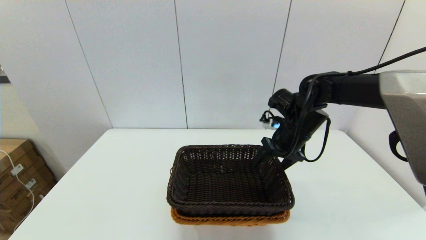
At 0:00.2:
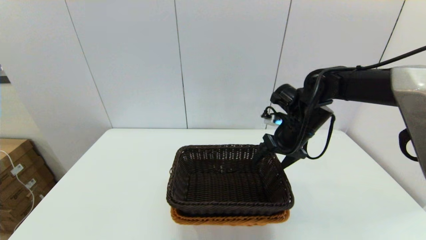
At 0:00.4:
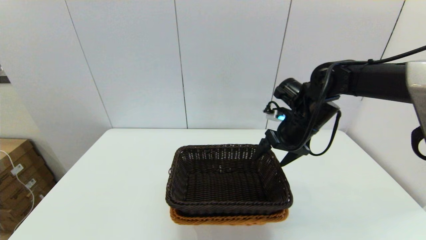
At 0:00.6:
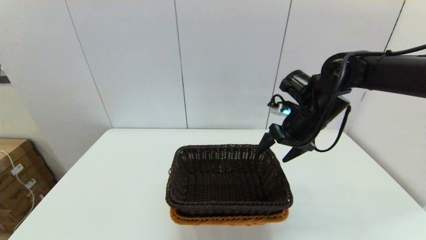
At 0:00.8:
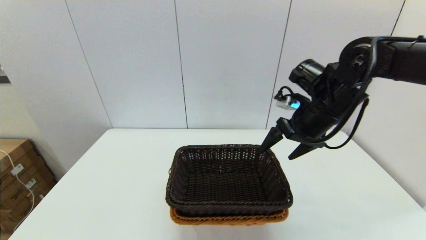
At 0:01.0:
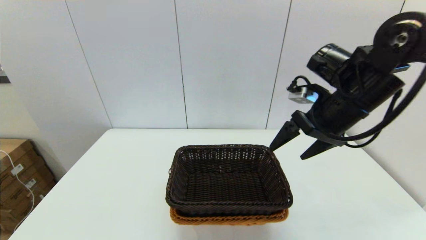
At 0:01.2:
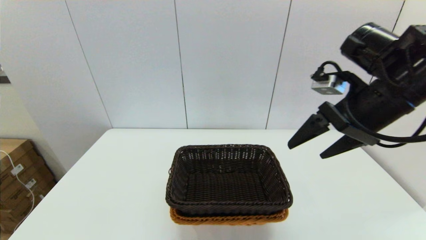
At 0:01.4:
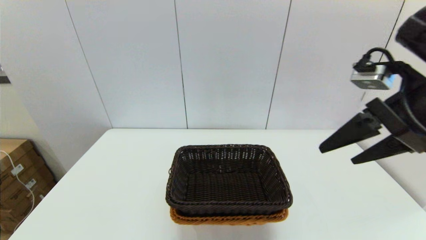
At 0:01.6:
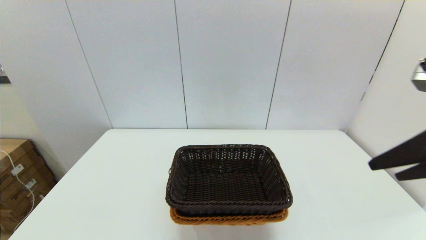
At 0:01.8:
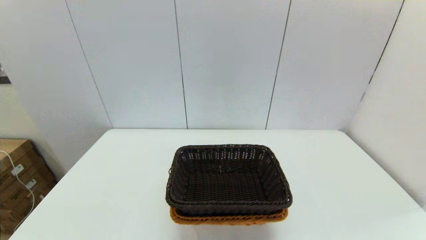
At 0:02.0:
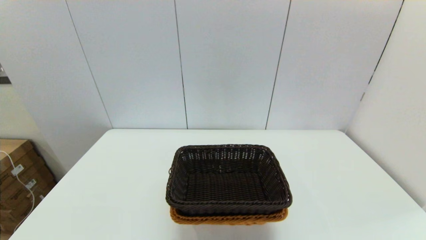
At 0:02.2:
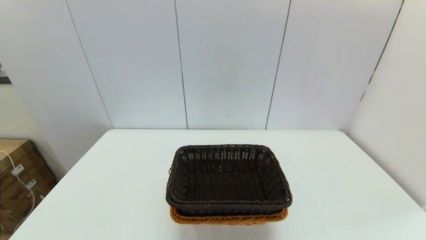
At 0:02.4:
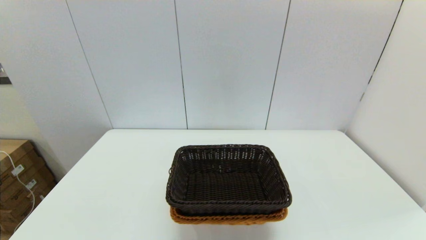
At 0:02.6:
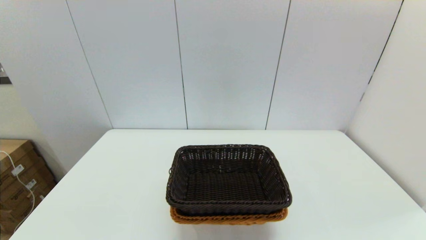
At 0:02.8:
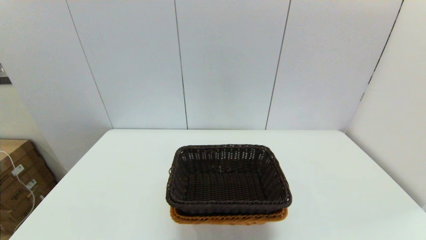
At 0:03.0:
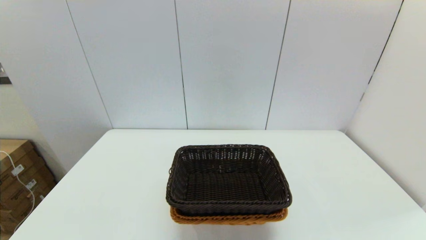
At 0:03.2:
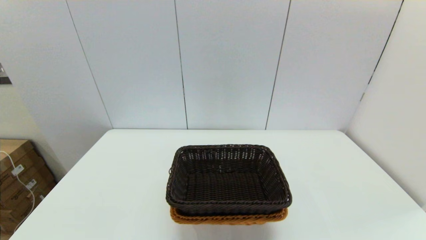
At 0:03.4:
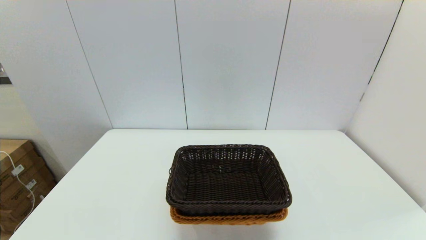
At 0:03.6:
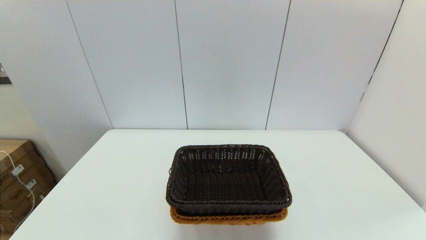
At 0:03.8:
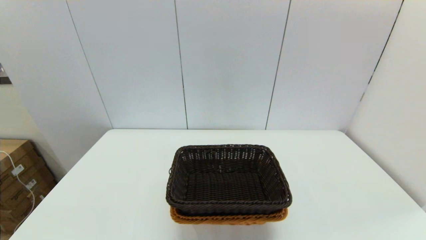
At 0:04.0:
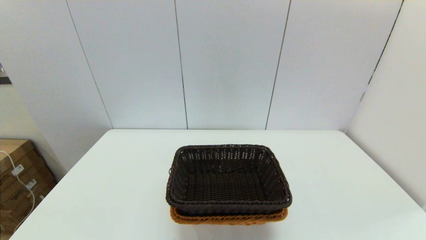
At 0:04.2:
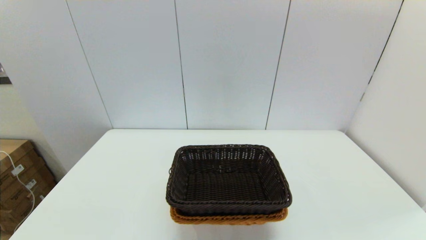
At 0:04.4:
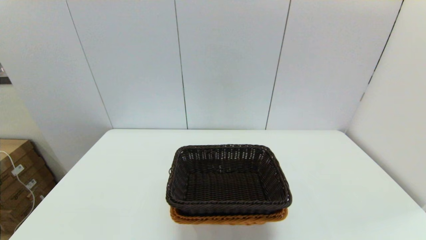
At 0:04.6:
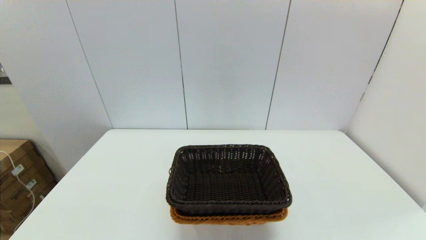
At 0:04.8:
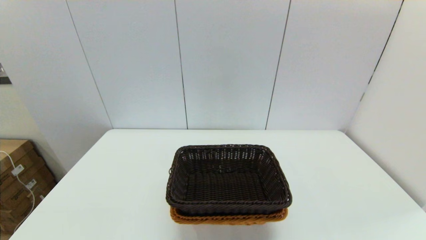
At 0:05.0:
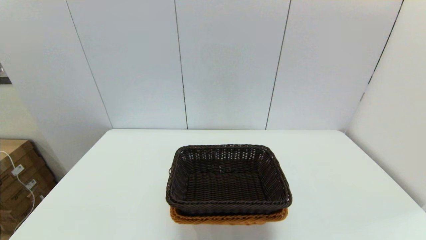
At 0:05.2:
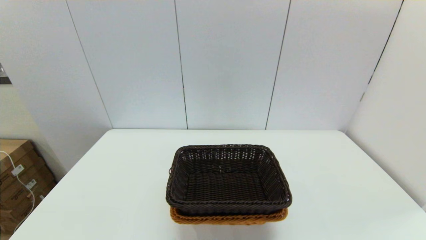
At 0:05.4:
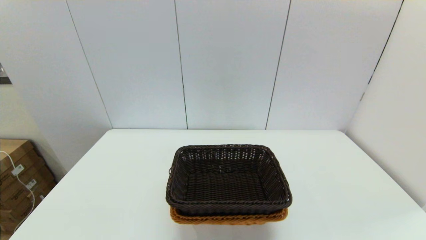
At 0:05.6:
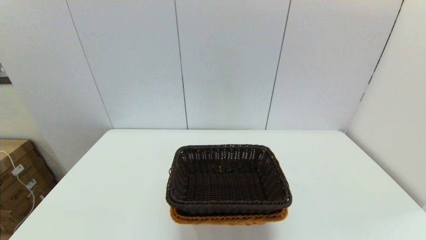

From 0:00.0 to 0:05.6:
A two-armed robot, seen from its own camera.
Task of the whole recording: stack a basket on top of another basket.
From 0:00.0 to 0:01.4: The right gripper moves backward, upward and to the right, approximately 25 cm.
From 0:01.4 to 0:02.8: The right gripper shifts roughly 30 cm backward.

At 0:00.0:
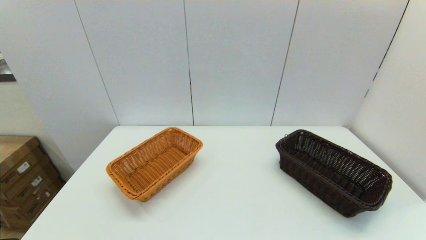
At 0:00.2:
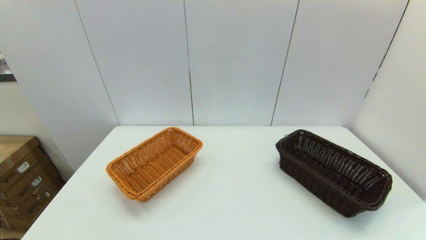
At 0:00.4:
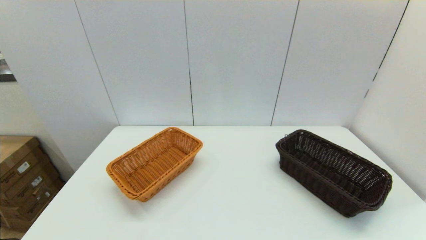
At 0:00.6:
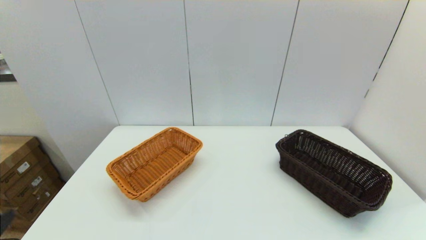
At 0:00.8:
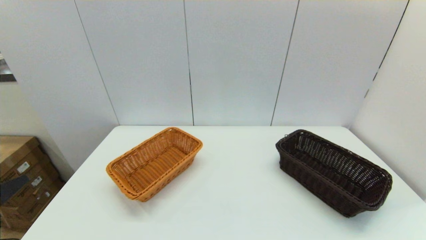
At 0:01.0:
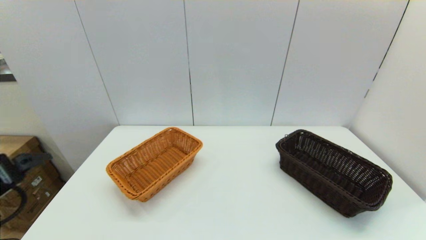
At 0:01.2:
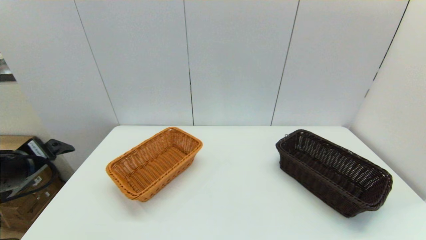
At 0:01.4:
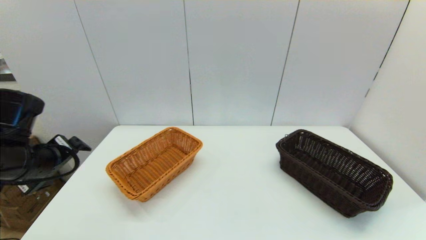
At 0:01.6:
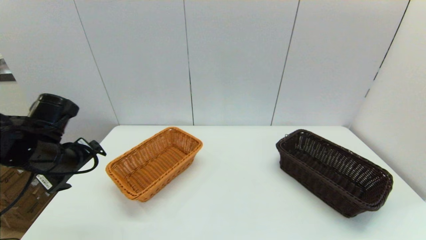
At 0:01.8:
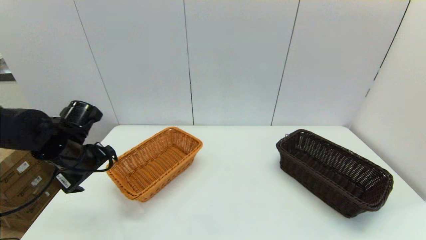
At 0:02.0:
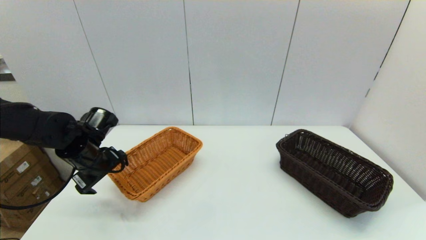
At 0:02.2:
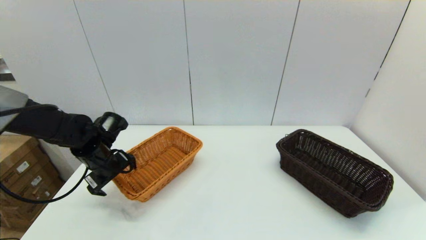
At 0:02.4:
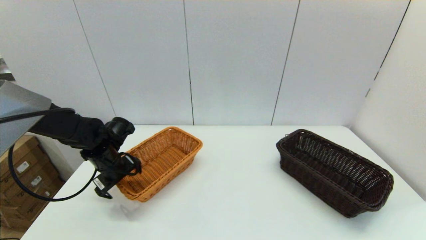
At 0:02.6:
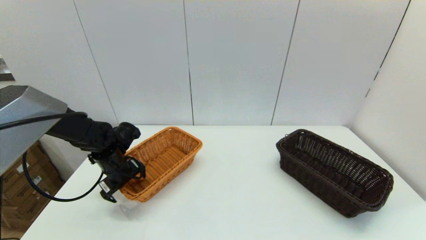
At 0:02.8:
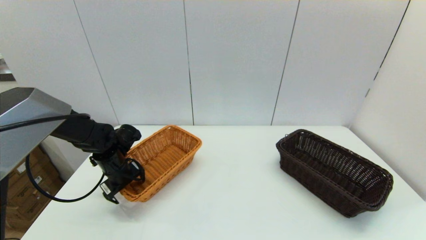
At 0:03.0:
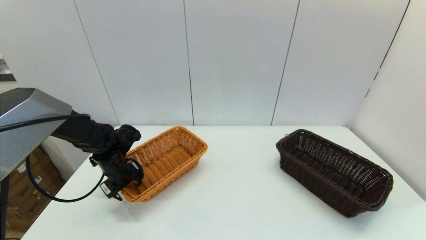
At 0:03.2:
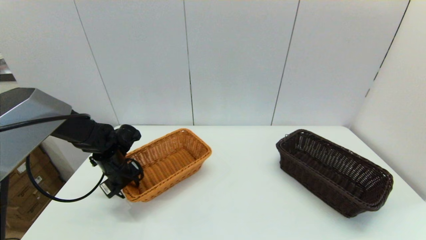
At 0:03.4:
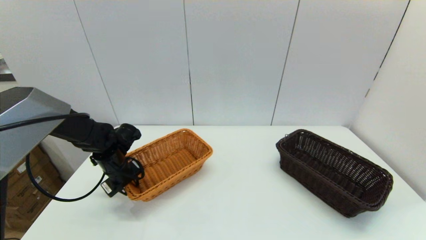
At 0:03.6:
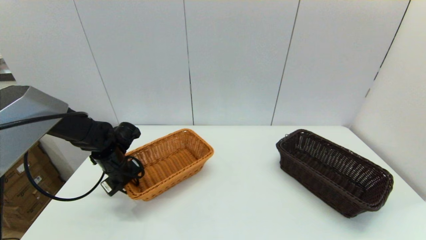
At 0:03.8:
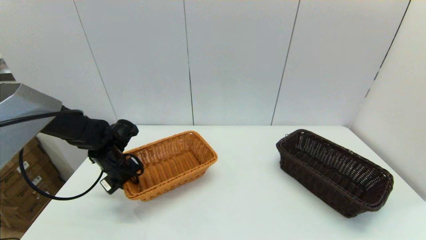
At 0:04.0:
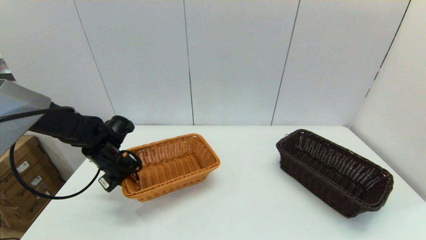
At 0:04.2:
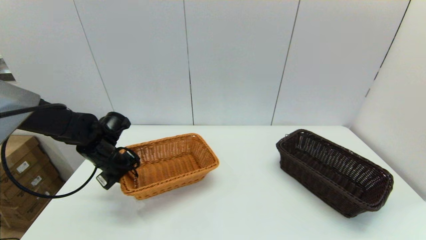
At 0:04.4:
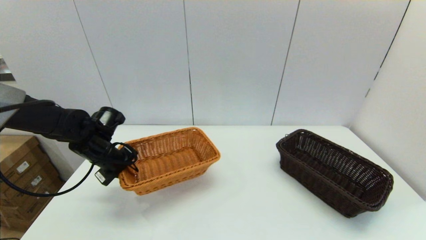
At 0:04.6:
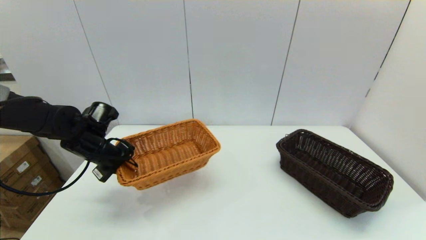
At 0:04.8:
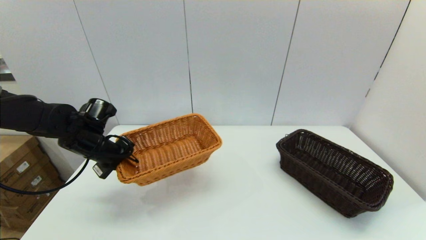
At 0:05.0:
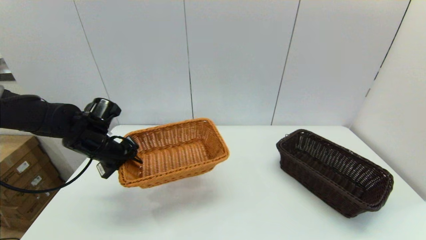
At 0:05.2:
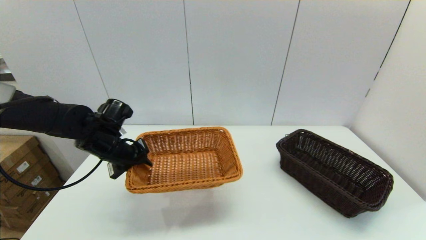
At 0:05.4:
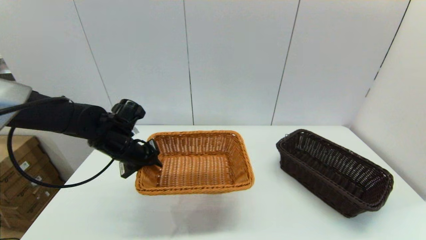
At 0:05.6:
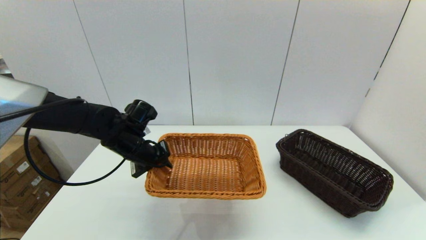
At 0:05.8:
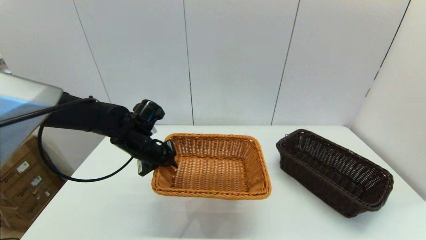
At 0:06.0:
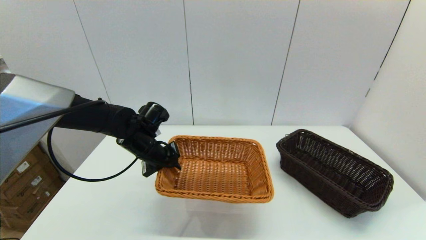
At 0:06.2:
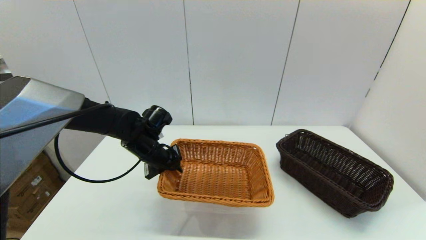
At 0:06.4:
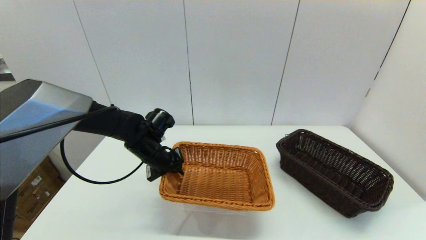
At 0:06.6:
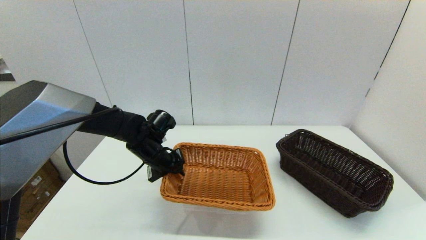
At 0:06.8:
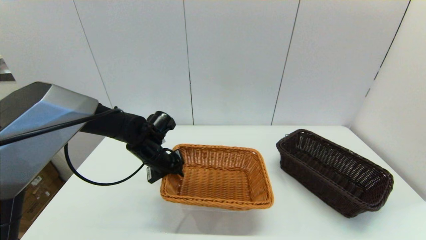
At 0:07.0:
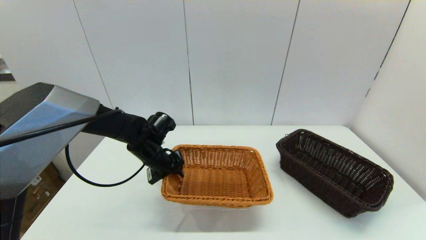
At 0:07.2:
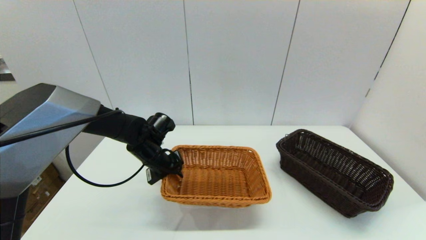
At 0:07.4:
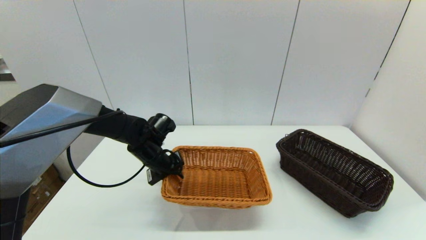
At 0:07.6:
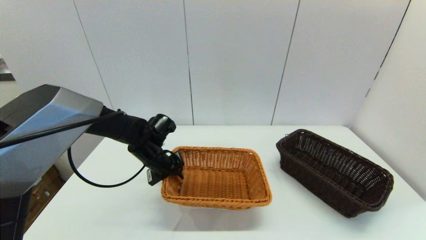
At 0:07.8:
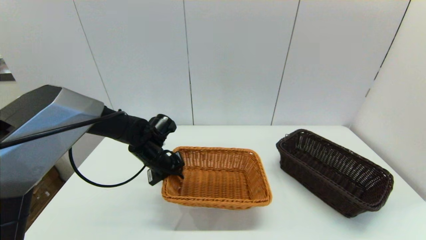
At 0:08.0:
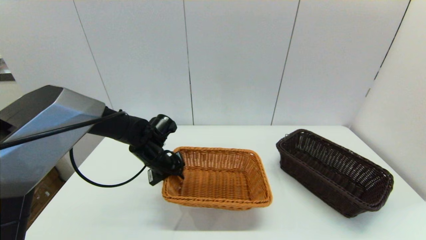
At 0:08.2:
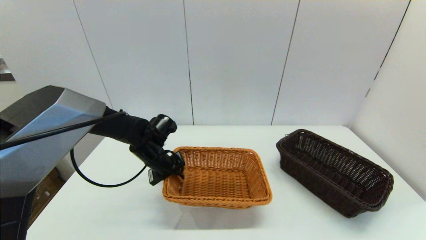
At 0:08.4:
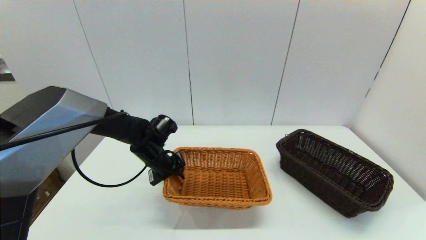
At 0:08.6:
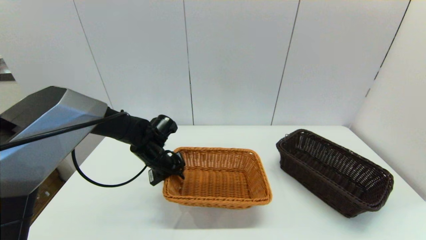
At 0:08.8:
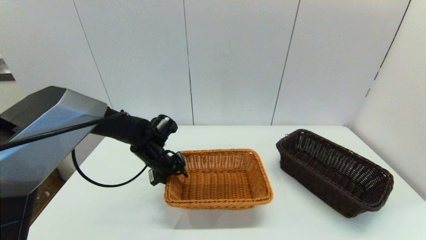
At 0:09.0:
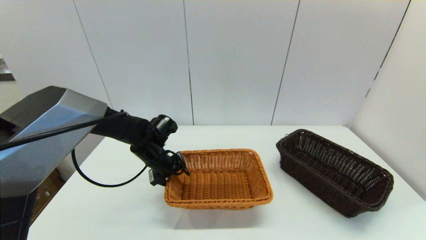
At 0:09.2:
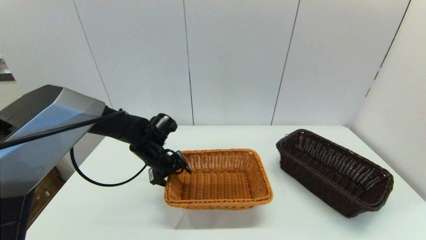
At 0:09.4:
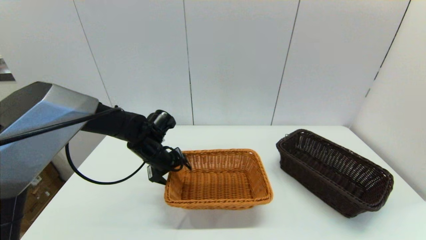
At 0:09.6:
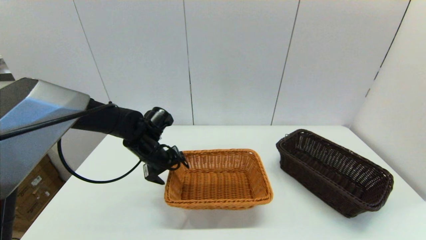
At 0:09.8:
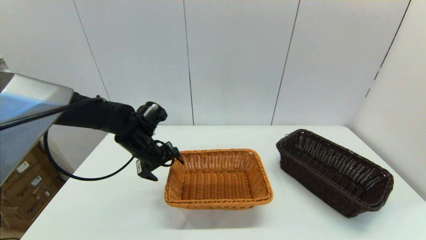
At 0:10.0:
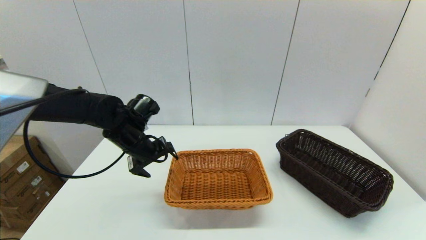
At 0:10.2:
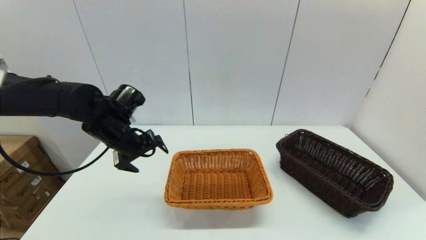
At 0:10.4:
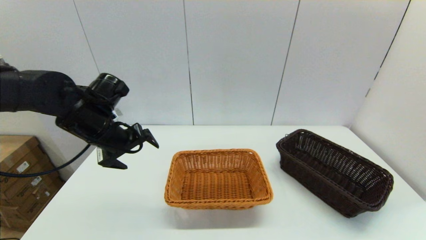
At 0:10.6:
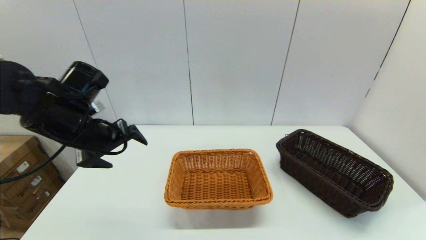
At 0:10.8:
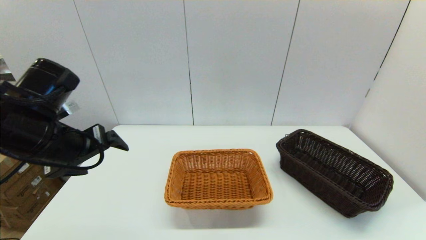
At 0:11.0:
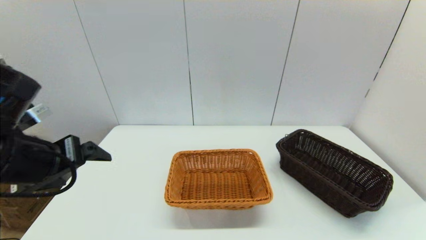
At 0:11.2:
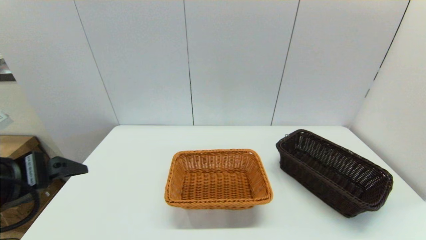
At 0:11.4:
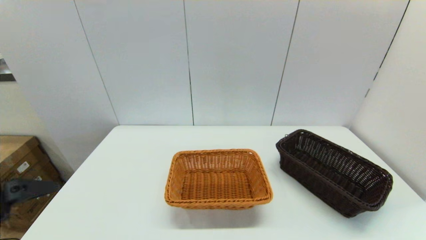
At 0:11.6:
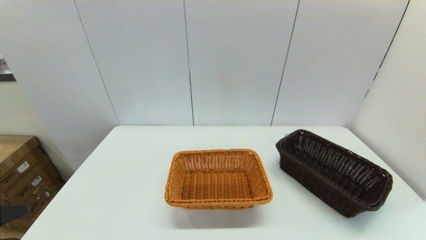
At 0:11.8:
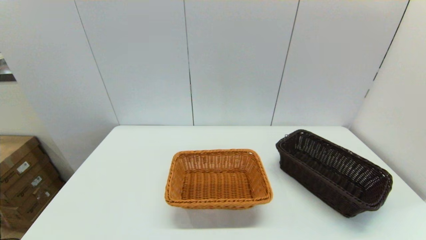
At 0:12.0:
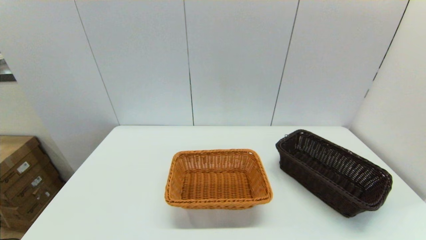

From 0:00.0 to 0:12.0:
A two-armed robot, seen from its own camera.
Task of the whole recording: stack a basket on top of another basket.
Step, from 0:00.0 to 0:03.6: Grasp the light basket with the left gripper.
Step, from 0:03.8 to 0:09.8: Place the light basket on the middle of the table with the left gripper.
From 0:00.0 to 0:01.6: The left gripper goes roughly 25 cm forward.
From 0:01.6 to 0:03.0: The left gripper heads downward and forward, covering some 15 cm, and closes.
From 0:03.0 to 0:04.4: The left gripper moves upward, approximately 5 cm, and closes its fingers.
From 0:04.4 to 0:06.0: The left gripper travels to the right by approximately 10 cm.
From 0:06.0 to 0:07.6: The grippers stay close to where they were, moving slightly.
From 0:07.6 to 0:09.0: The left gripper opens.
From 0:09.0 to 0:10.4: The left gripper shifts roughly 15 cm upward, to the left and backward, and opens.
From 0:10.4 to 0:12.0: The left gripper is displaced backward by roughly 35 cm.
